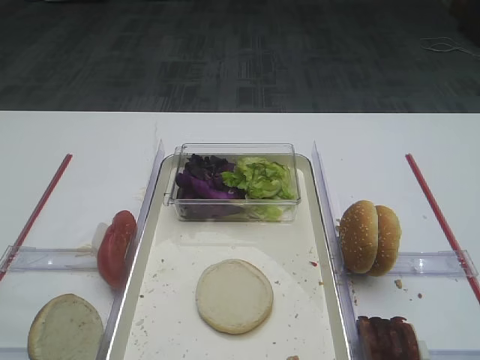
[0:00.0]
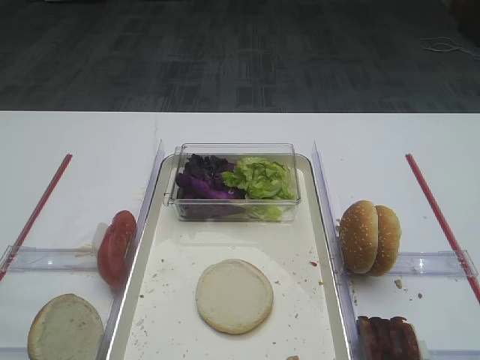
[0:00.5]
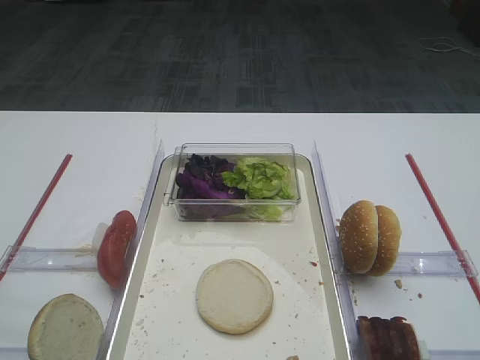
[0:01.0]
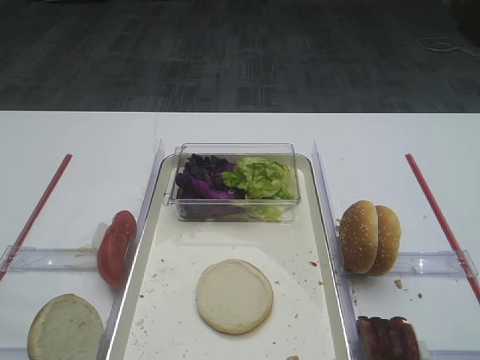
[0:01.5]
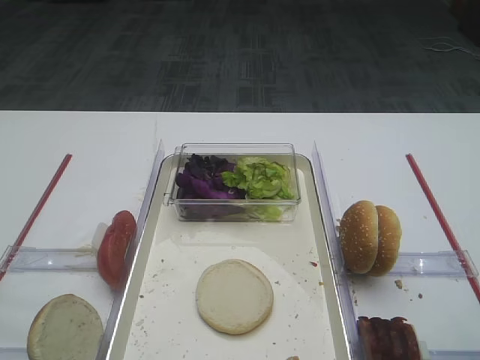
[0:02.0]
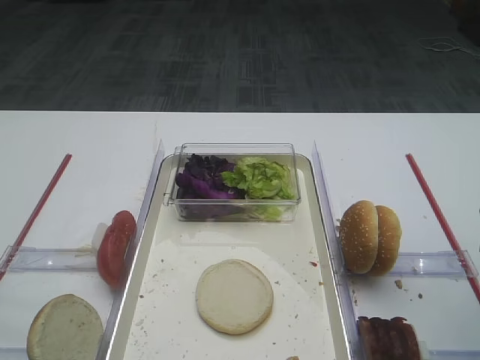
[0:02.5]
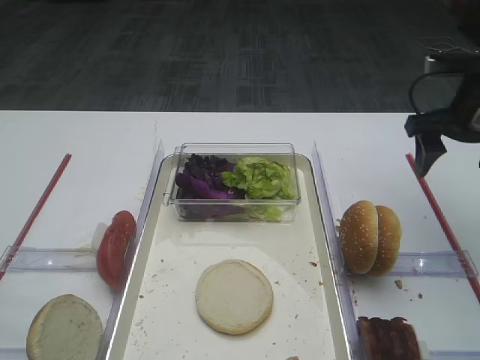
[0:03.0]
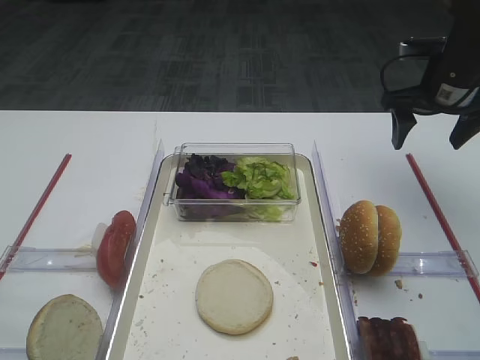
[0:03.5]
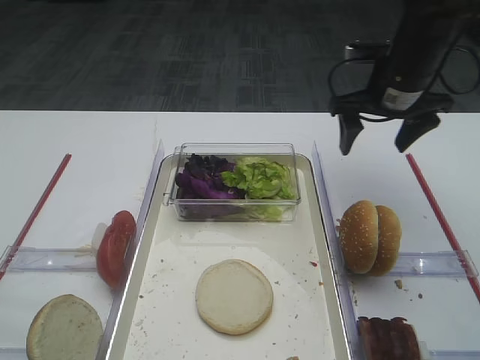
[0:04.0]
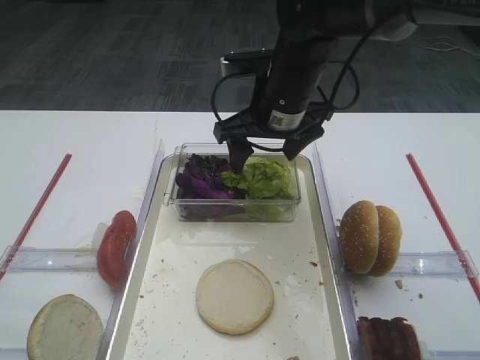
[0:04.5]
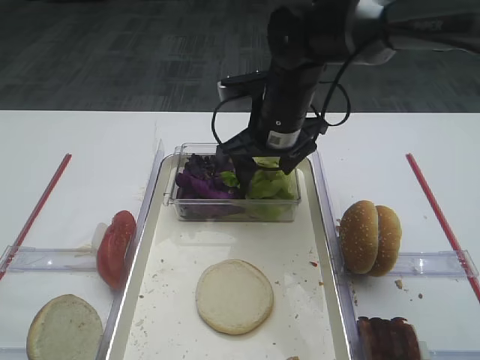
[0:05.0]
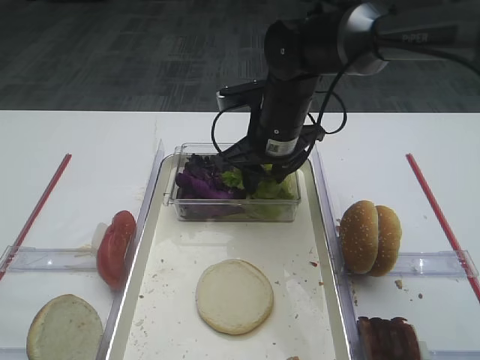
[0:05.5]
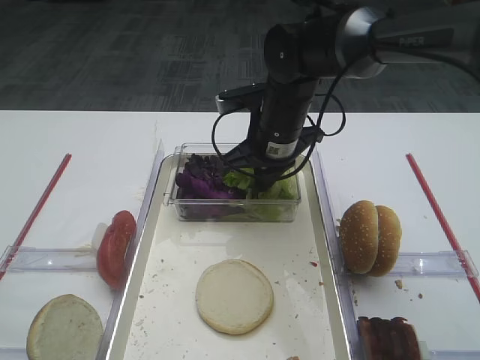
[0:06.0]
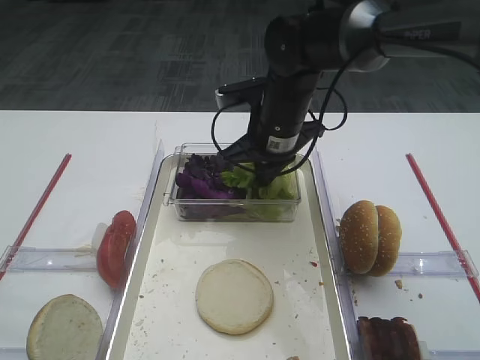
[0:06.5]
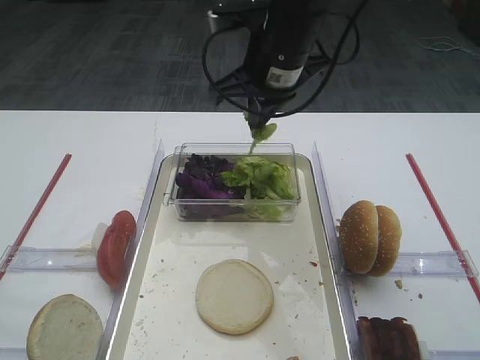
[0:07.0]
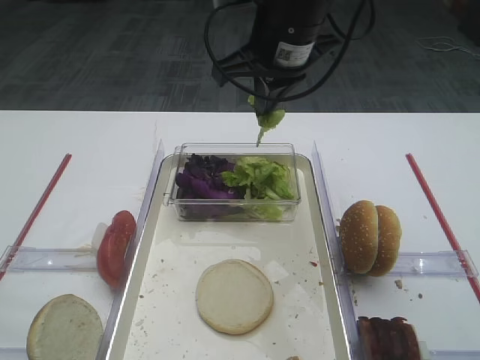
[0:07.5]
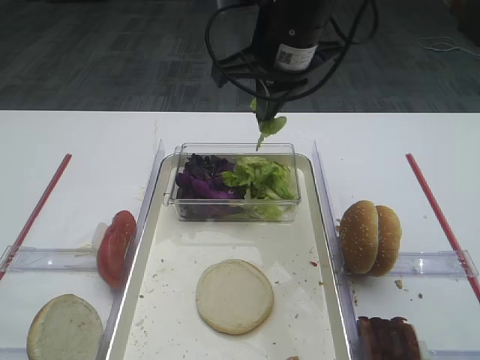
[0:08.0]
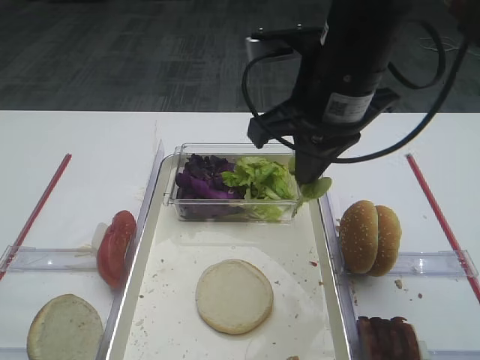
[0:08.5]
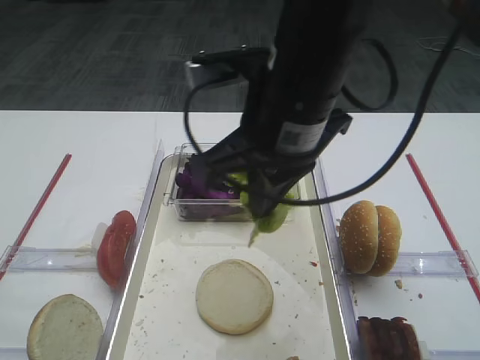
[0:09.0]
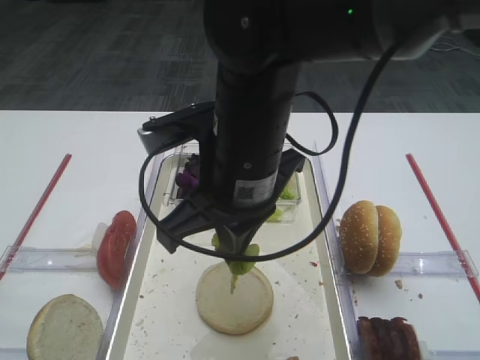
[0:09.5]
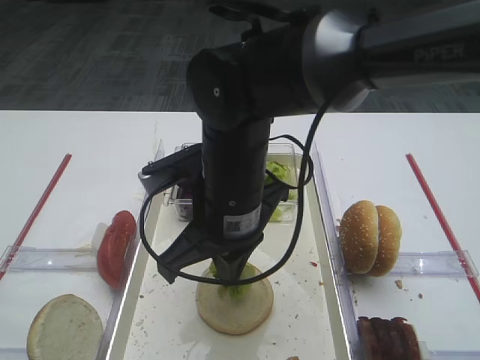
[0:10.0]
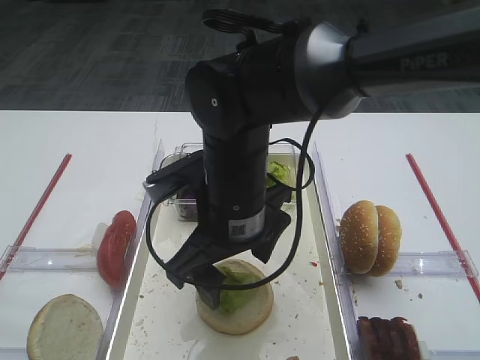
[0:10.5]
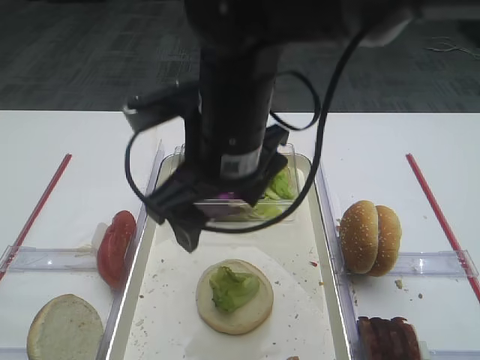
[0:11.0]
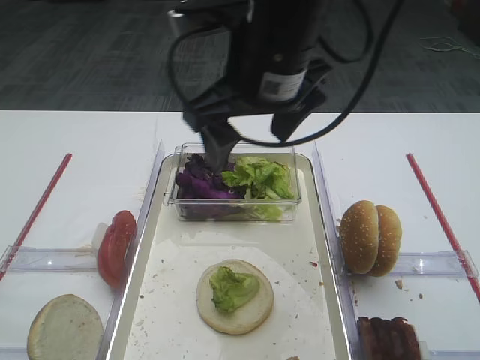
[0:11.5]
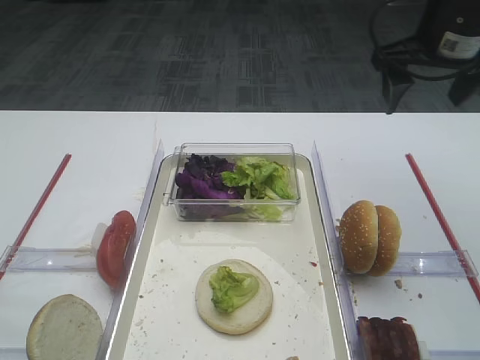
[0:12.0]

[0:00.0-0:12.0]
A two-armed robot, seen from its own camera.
Step, 0:00.0 to 0:06.5: Pick up the lettuce leaf with the right gripper.
Step, 0:07.0 to 0:10.5: Place the lettuce leaf on the bread slice with the right gripper.
0:02.0 to 0:04.0: The right gripper shifts approximately 30 cm forward.
0:04.0 to 0:06.0: The right gripper shifts about 15 cm to the left, and closes.
0:06.0 to 0:08.0: The right gripper shifts roughly 15 cm upward.
0:08.0 to 0:10.0: The right gripper heads backward, downward and to the left, covering some 15 cm.
0:10.0 to 0:12.0: The right gripper travels to the right, forward and upward by approximately 30 cm, and opens up.

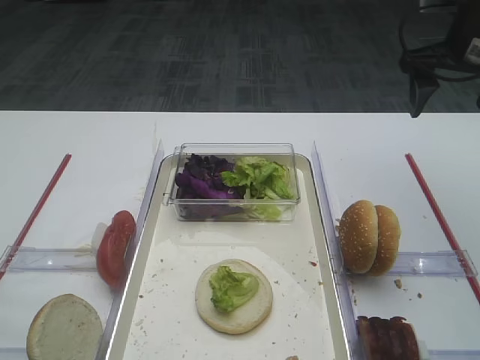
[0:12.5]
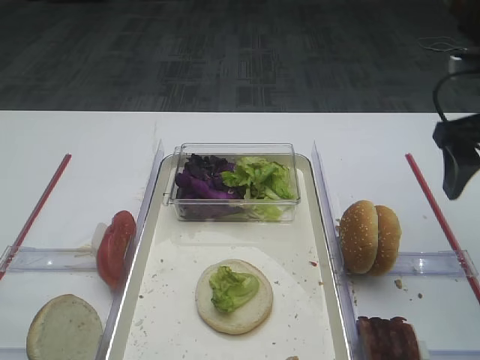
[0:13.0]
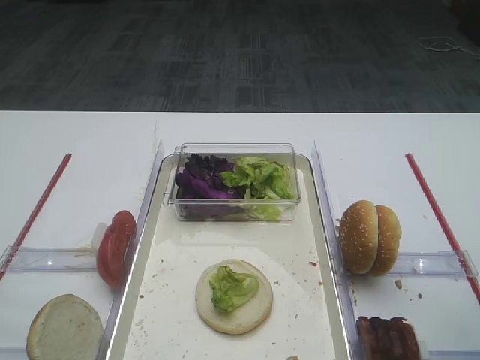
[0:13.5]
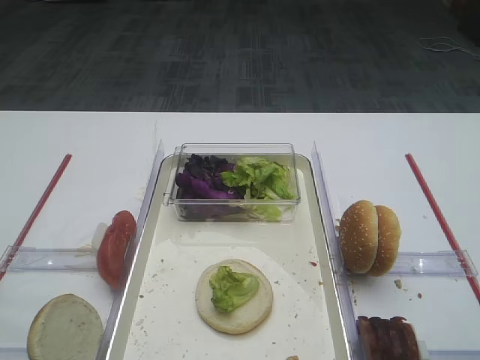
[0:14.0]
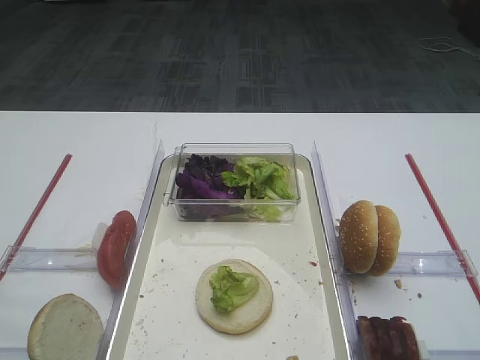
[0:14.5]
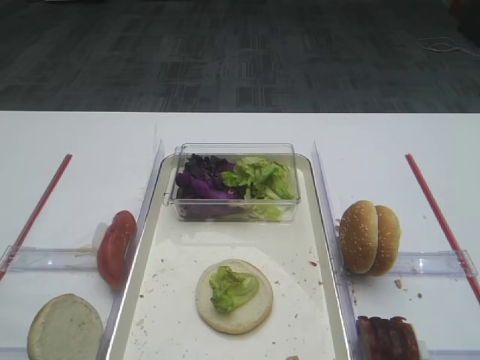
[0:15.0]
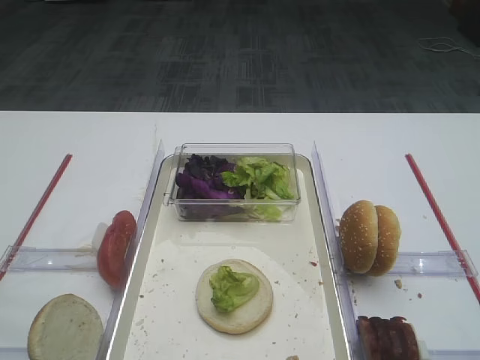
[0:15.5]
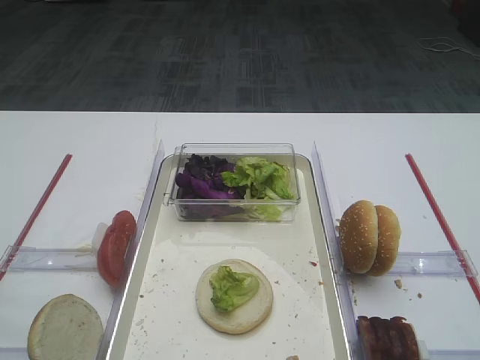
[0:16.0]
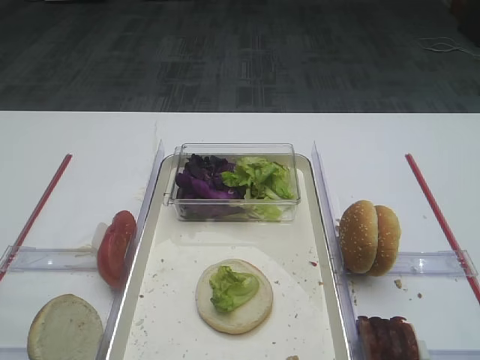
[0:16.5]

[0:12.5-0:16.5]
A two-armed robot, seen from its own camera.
0:12.5 to 0:14.5: The right gripper moves backward, roughly 35 cm.

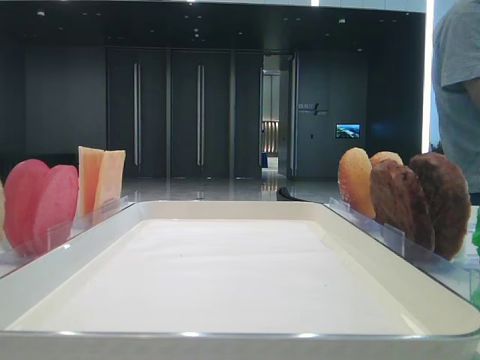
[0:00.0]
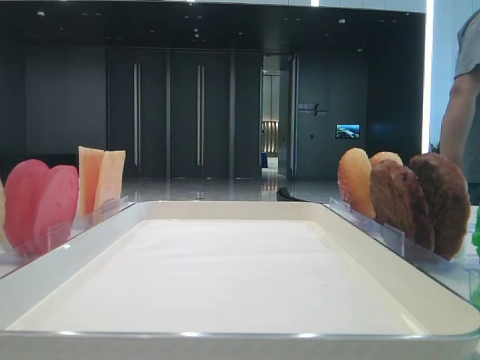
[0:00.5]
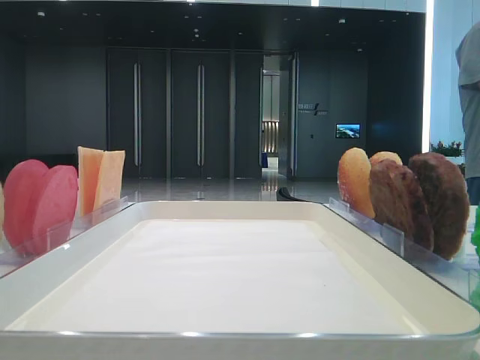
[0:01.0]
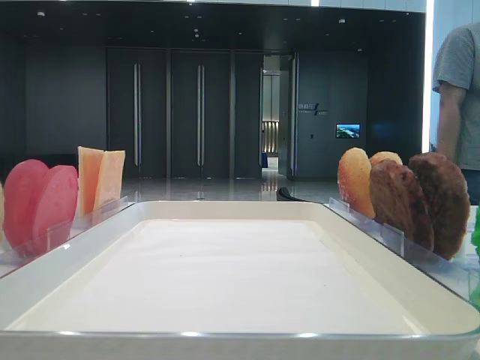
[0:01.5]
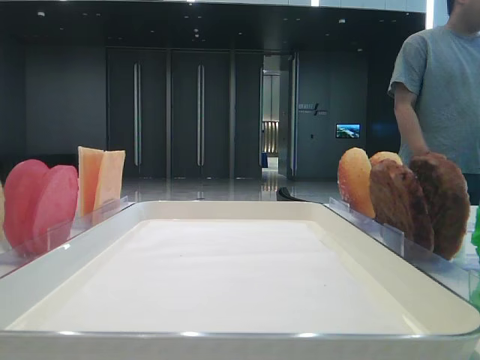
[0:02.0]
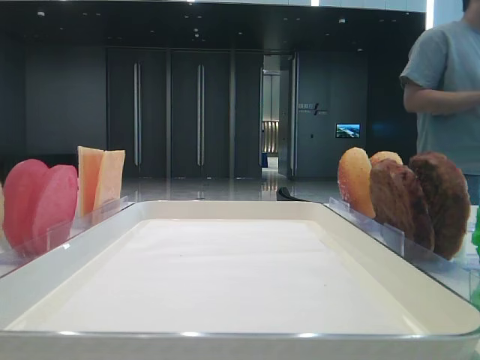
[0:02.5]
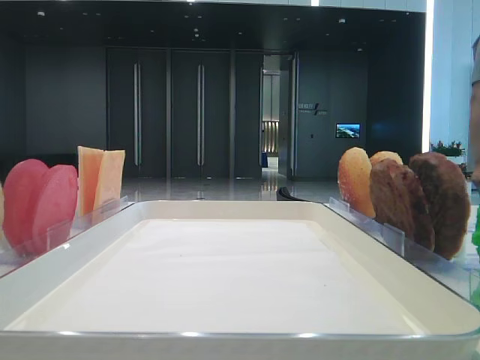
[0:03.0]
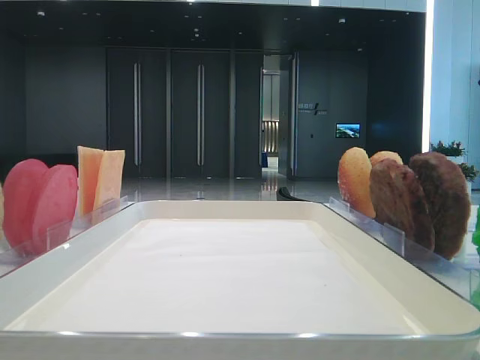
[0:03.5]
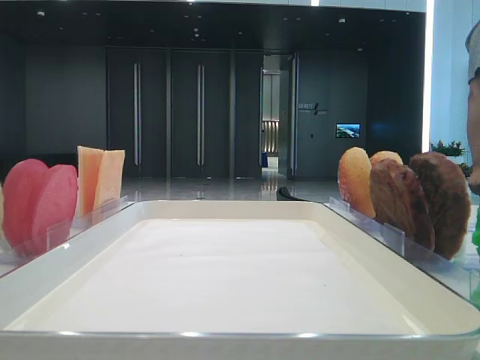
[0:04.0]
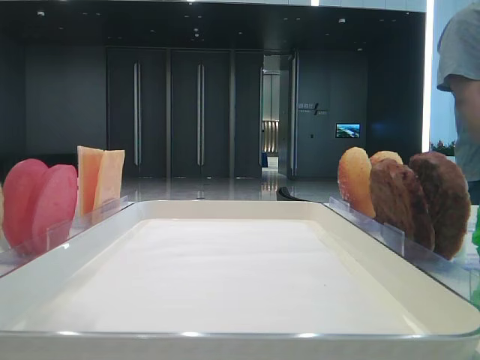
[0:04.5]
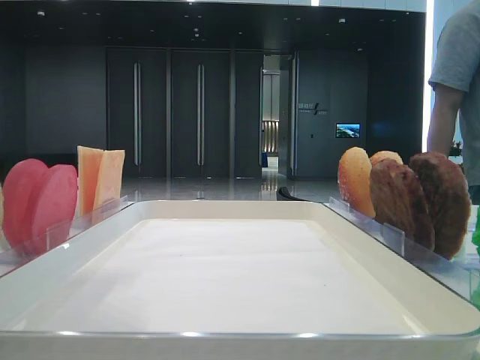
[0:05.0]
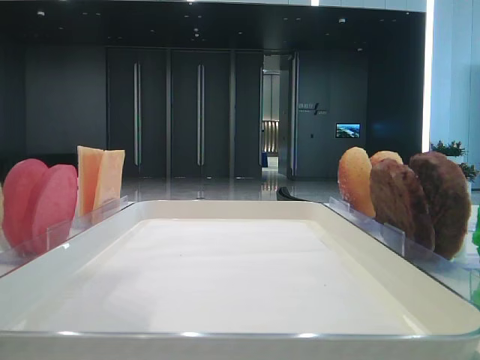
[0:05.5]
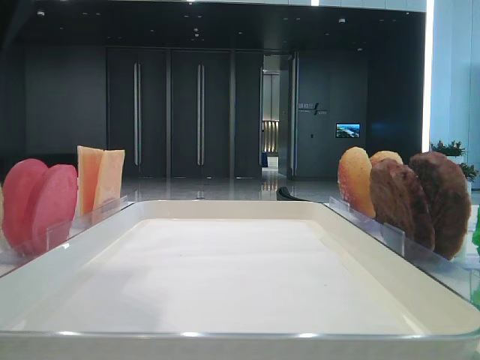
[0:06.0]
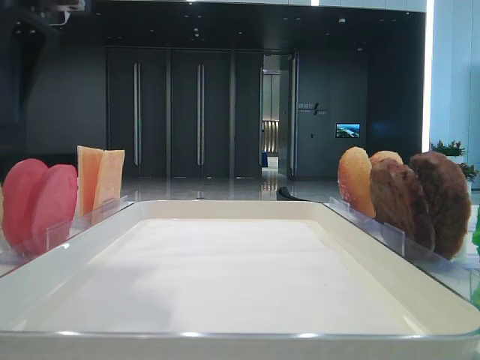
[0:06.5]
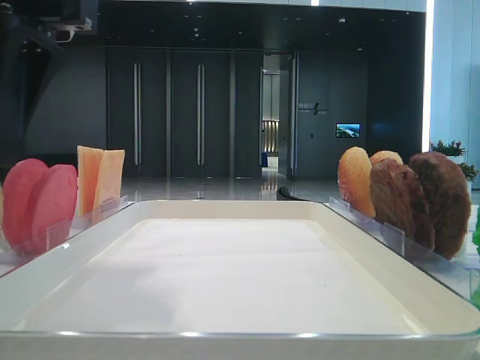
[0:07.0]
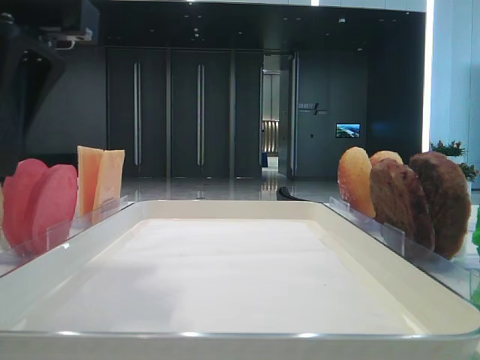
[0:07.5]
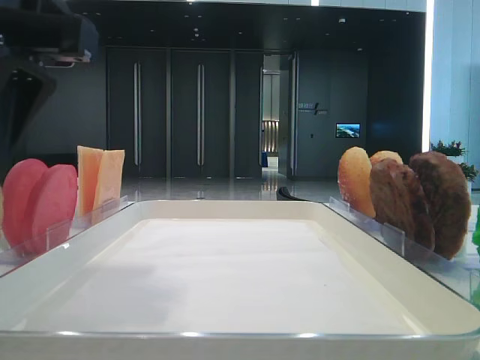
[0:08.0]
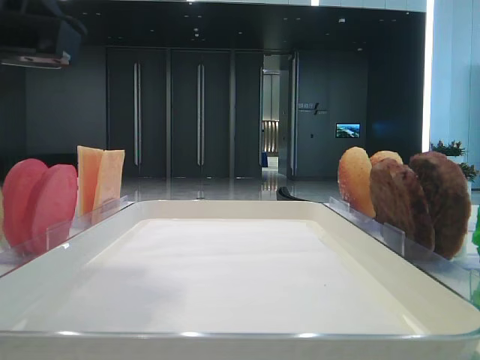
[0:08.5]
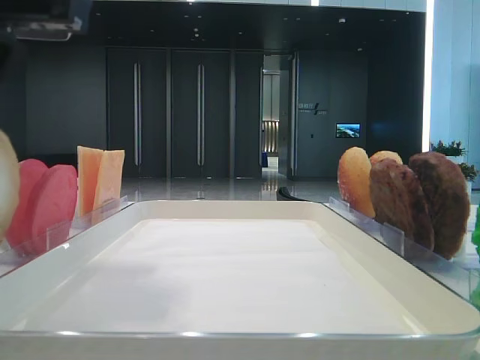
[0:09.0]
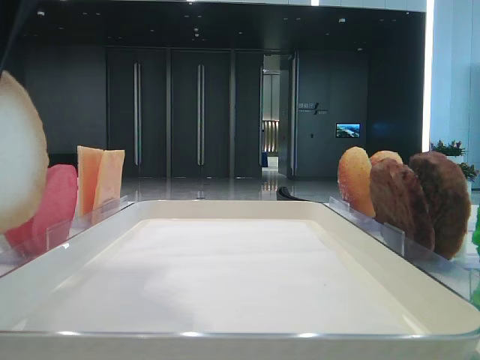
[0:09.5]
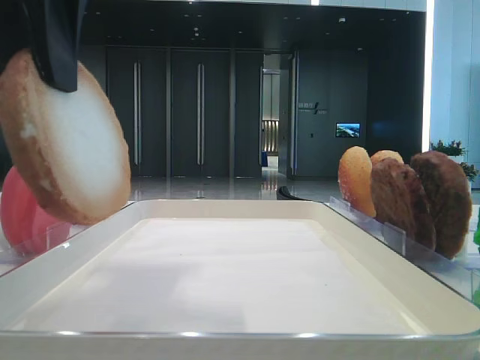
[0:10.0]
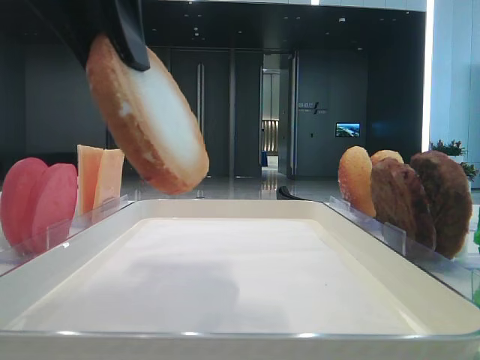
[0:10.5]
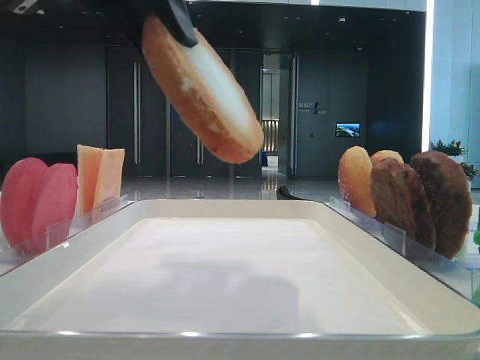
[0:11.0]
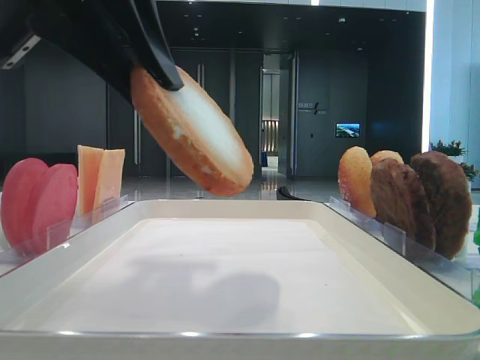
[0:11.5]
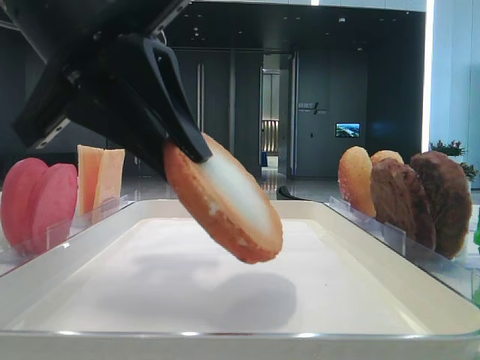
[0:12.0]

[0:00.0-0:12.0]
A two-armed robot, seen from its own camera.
Step, 0:00.0 to 0:08.5: Pick up the bottom bread with the left hand.
0:04.0 to 0:06.0: The left gripper moves to the right and downward, roughly 10 cm.
0:08.0 to 0:10.0: The left gripper shifts by roughly 5 cm, and closes up.
0:10.0 to 0:12.0: The left gripper is displaced downward by approximately 5 cm.
